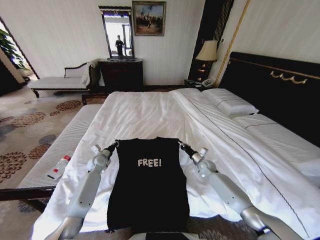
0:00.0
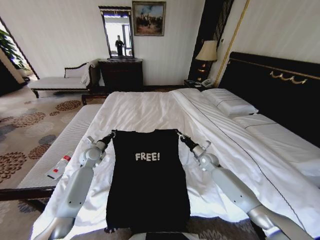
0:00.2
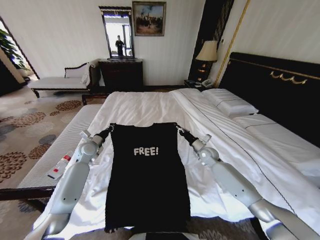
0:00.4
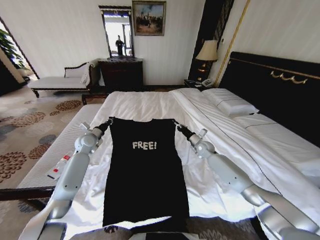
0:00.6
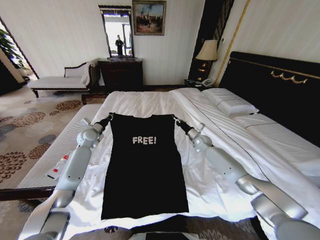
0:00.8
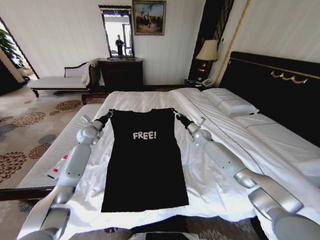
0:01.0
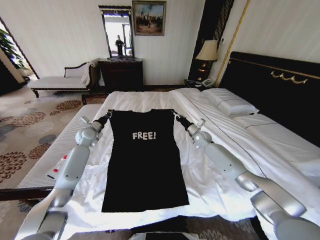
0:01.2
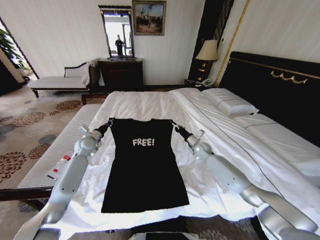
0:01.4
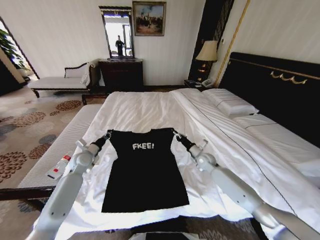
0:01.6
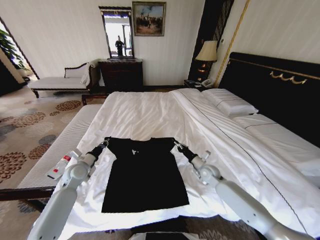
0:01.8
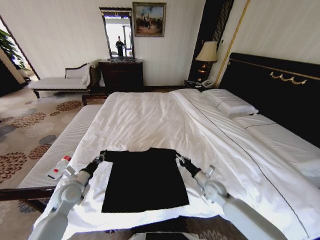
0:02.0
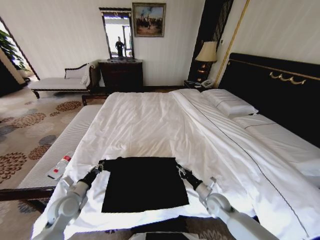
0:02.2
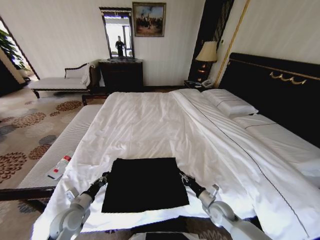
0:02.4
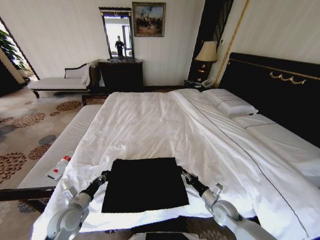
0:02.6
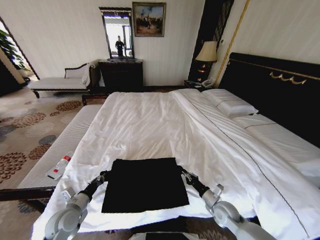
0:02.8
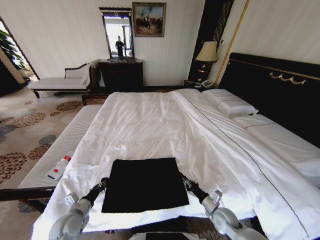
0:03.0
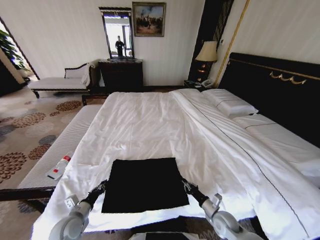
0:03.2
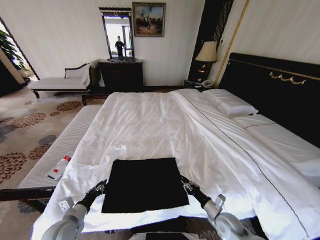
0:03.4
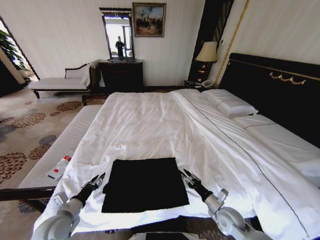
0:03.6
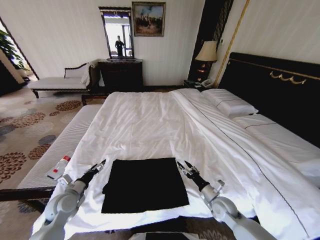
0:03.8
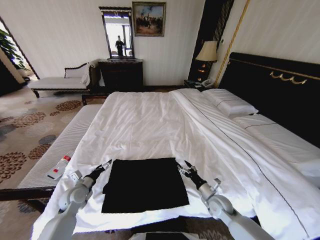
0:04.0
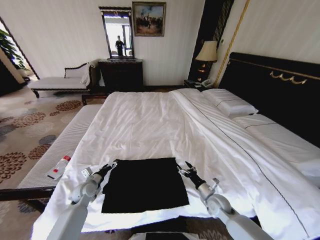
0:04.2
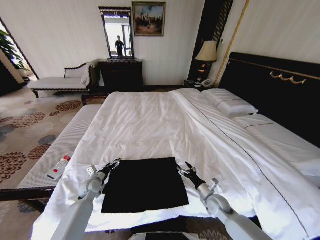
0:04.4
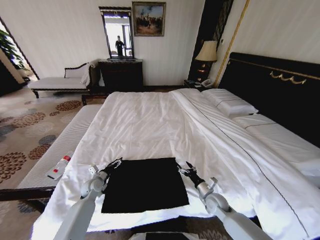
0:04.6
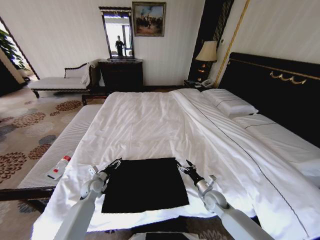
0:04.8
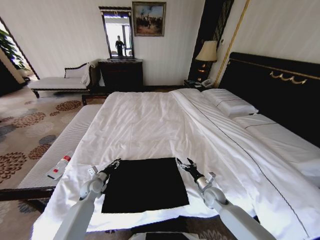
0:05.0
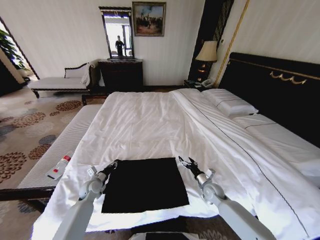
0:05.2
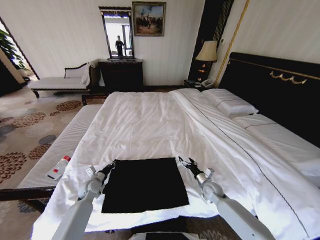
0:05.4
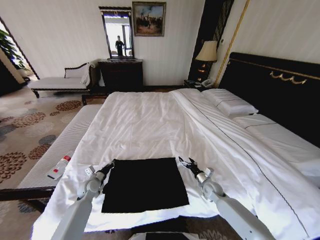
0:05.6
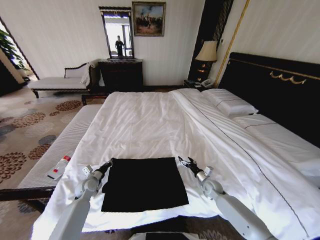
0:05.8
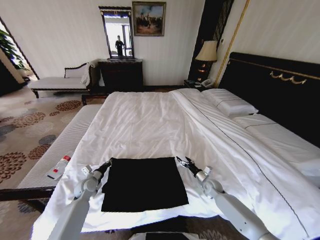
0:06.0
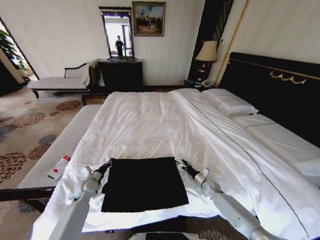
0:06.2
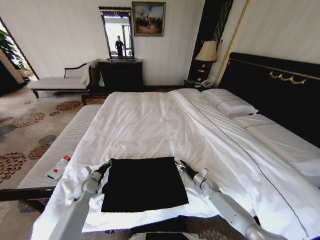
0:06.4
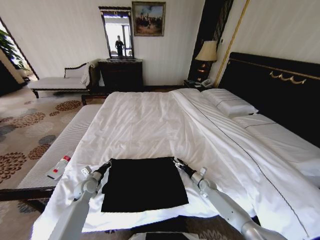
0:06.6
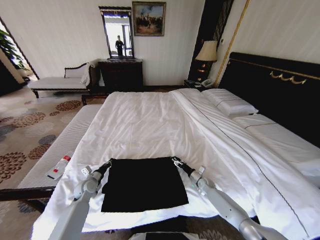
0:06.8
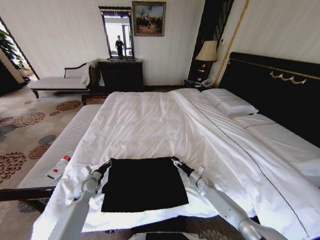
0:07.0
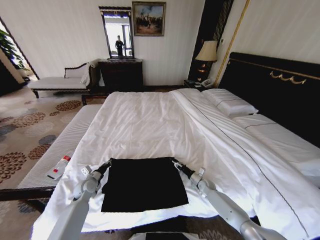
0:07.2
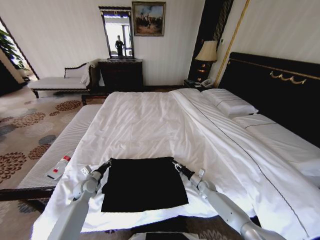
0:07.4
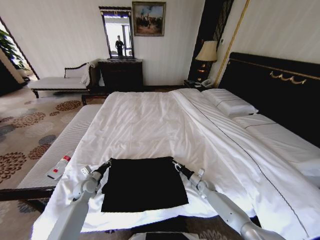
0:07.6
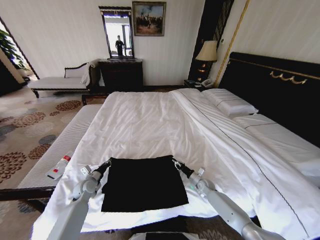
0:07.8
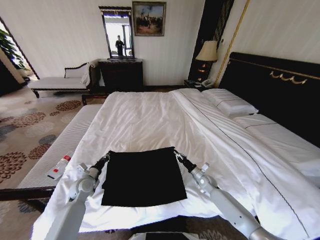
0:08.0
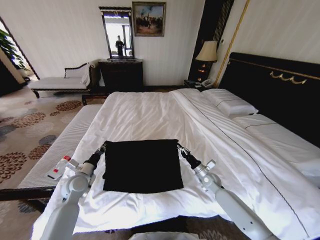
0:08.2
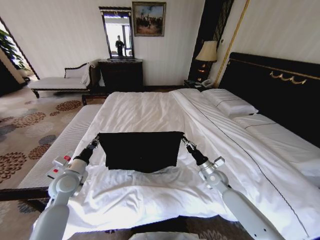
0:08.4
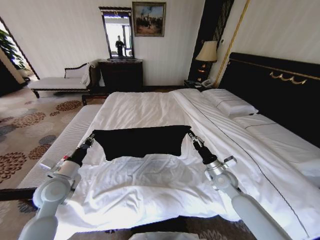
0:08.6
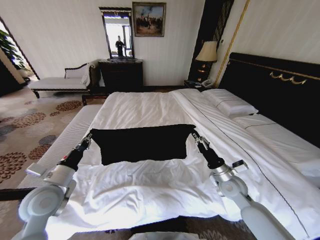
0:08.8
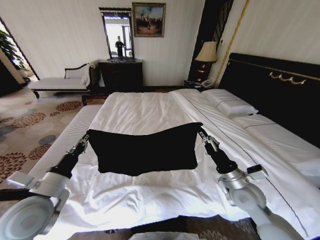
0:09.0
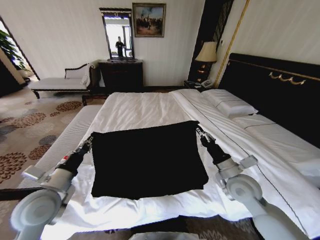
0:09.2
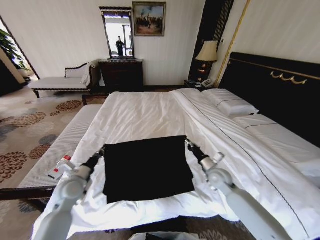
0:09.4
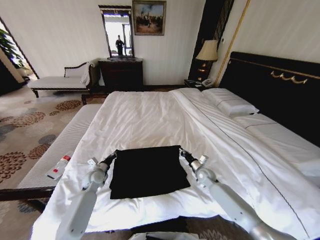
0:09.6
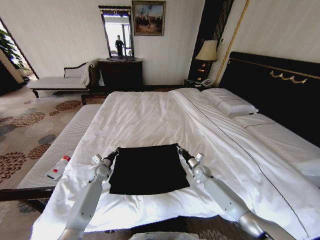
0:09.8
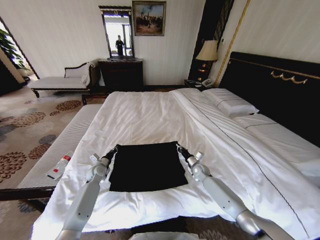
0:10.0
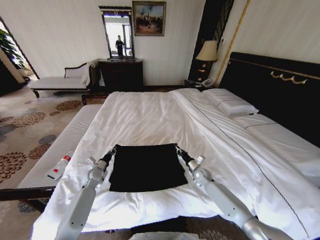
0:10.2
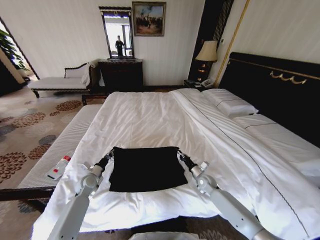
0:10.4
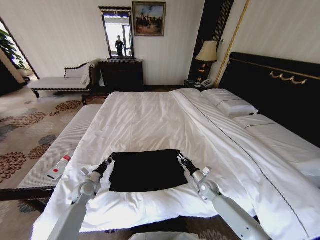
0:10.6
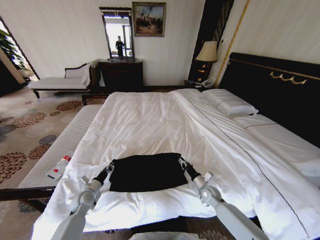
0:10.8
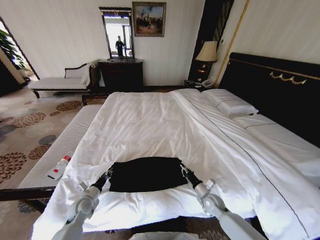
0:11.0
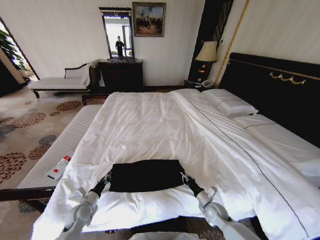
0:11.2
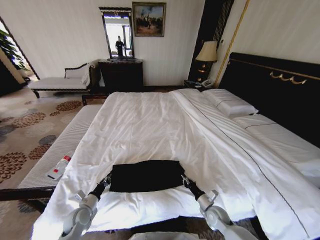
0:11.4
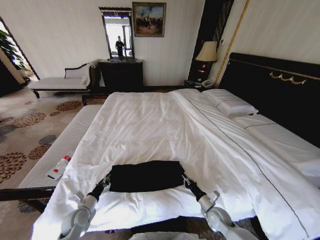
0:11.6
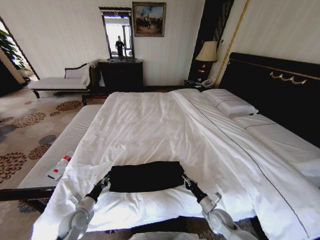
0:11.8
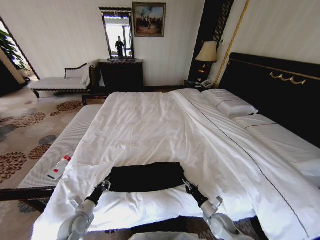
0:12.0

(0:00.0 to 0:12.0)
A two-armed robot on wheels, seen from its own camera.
Task of the whole recording: Fold the clothes on the bed.
0:00.0 - 0:01.6: The grippers both shift upward by about 10 cm.
0:01.6 - 0:03.0: The right gripper travels backward and downward by approximately 30 cm; the left gripper is displaced backward by approximately 25 cm.
0:03.0 - 0:04.4: The left gripper heads forward, covering some 15 cm, and opens, while the right gripper changes place by about 5 cm, and opens its fingers.
0:04.4 - 0:06.0: The right gripper goes about 10 cm forward; the left gripper closes its fingers.
0:06.0 - 0:07.6: The right gripper goes about 5 cm downward, and closes its fingers.
0:07.6 - 0:09.0: The grippers both shift upward and backward by about 30 cm.
0:09.0 - 0:10.4: Both grippers travel together downward and forward, some 30 cm.
0:10.4 - 0:12.0: The grippers both shift backward by approximately 20 cm.

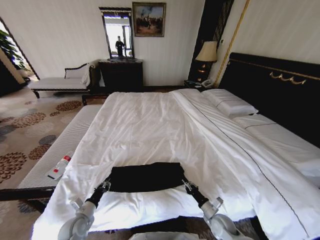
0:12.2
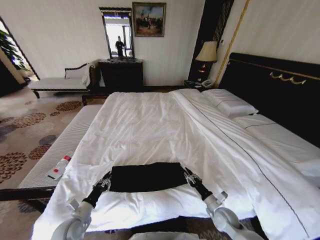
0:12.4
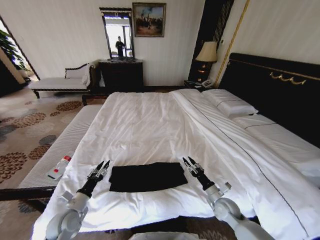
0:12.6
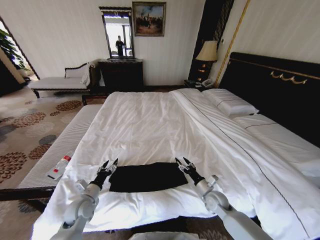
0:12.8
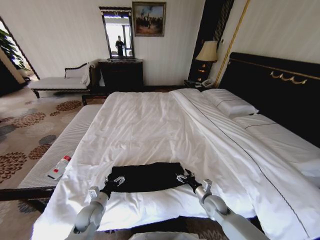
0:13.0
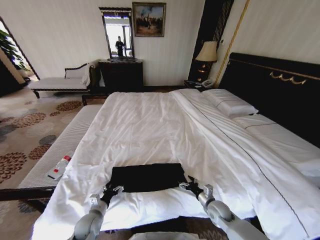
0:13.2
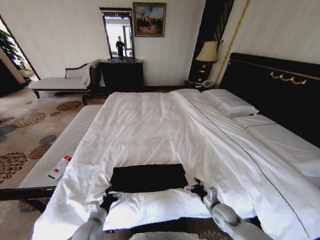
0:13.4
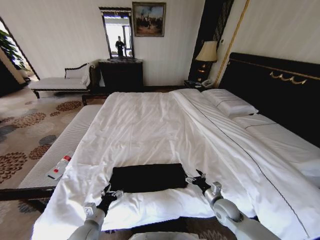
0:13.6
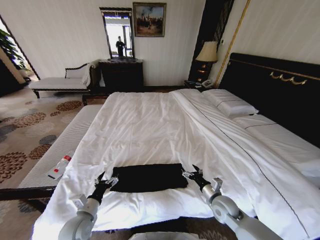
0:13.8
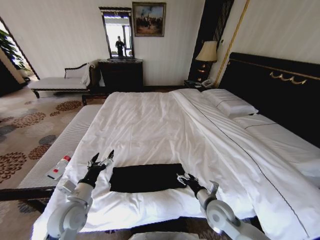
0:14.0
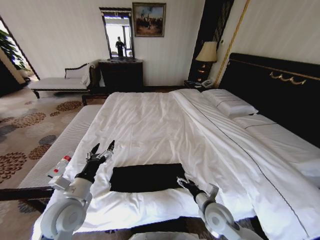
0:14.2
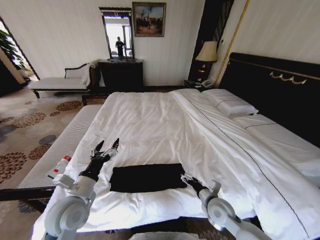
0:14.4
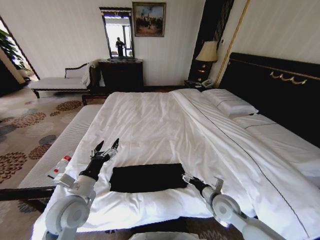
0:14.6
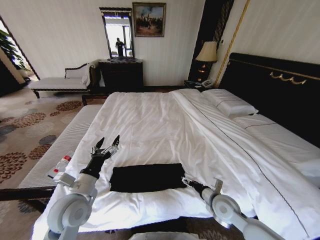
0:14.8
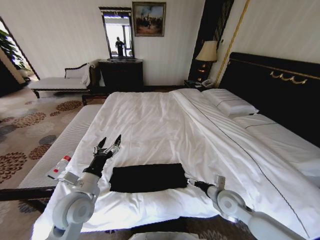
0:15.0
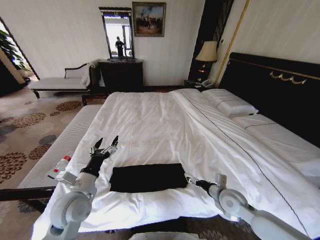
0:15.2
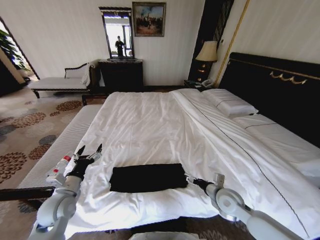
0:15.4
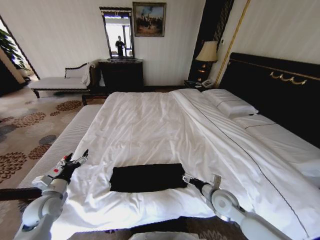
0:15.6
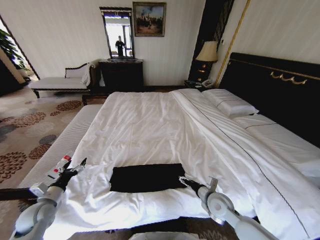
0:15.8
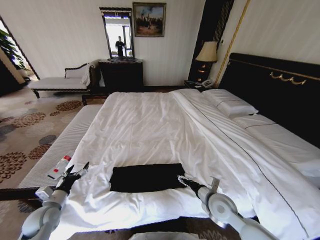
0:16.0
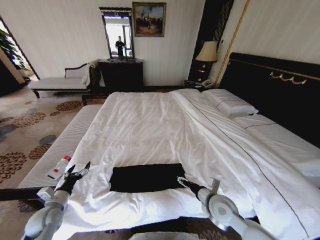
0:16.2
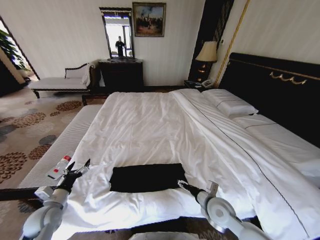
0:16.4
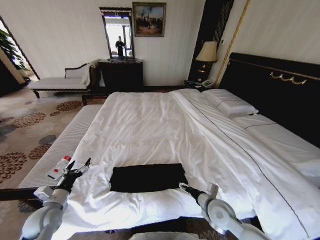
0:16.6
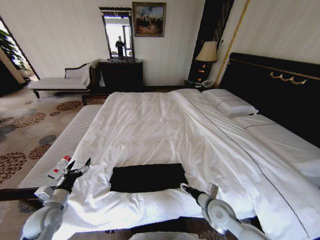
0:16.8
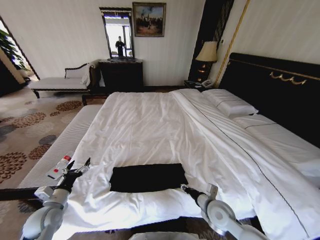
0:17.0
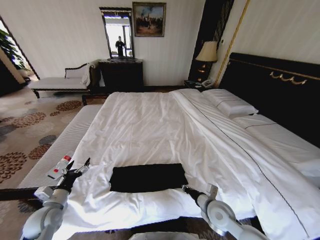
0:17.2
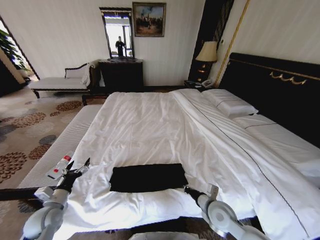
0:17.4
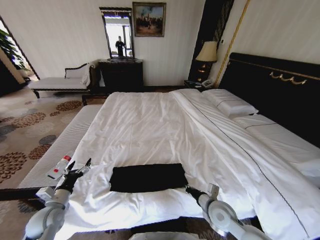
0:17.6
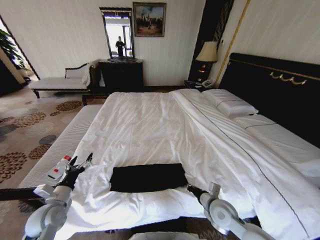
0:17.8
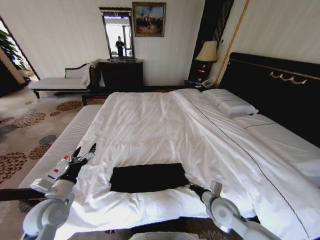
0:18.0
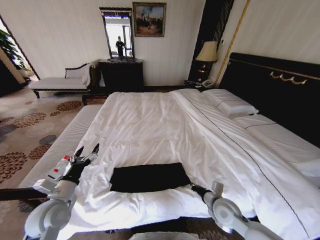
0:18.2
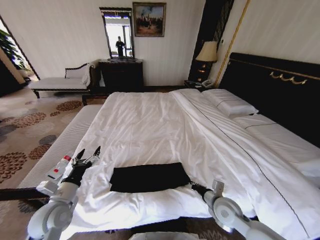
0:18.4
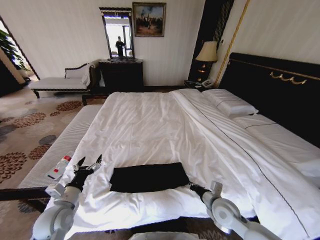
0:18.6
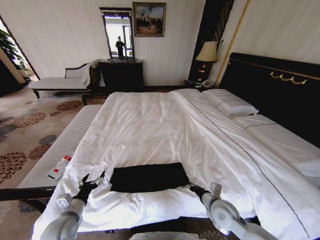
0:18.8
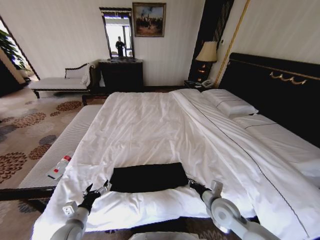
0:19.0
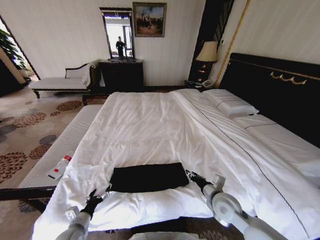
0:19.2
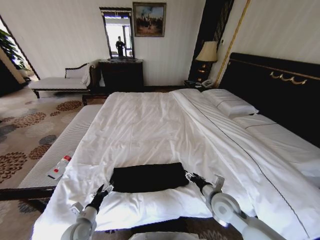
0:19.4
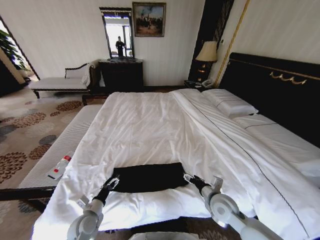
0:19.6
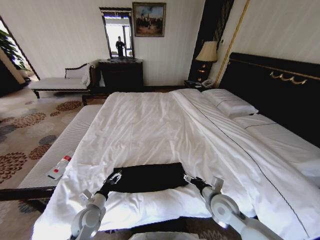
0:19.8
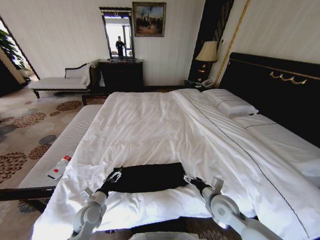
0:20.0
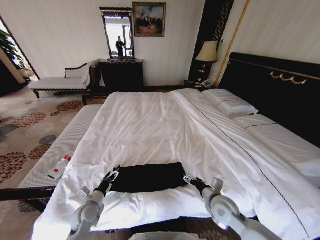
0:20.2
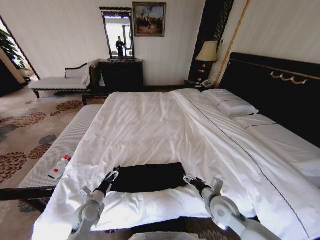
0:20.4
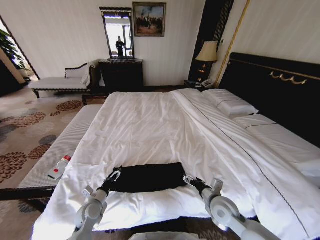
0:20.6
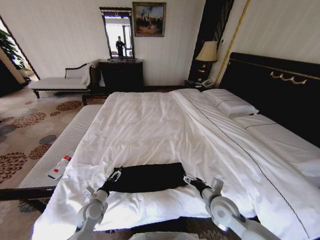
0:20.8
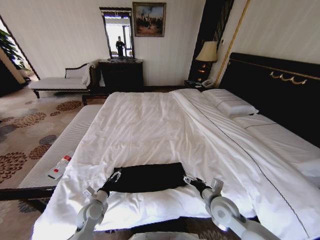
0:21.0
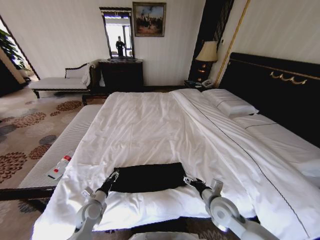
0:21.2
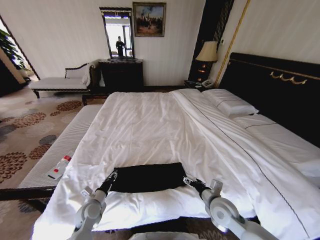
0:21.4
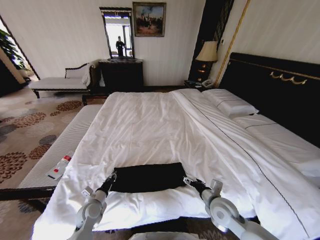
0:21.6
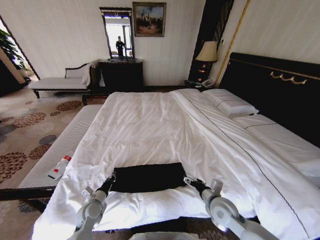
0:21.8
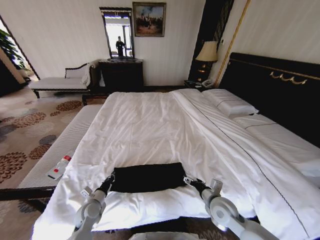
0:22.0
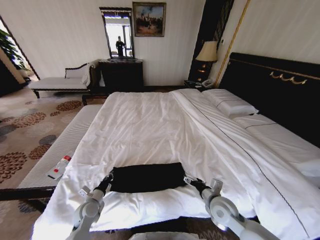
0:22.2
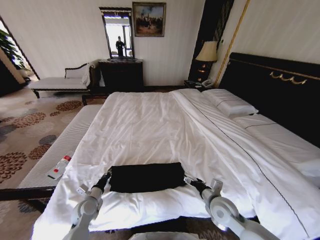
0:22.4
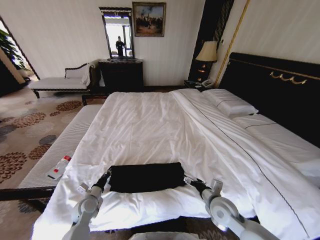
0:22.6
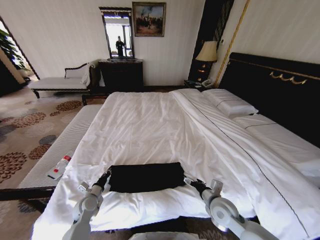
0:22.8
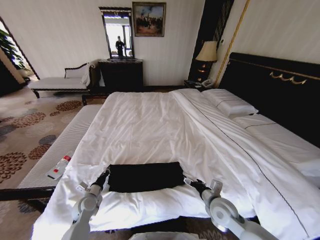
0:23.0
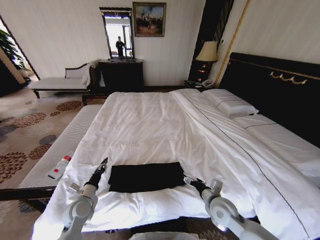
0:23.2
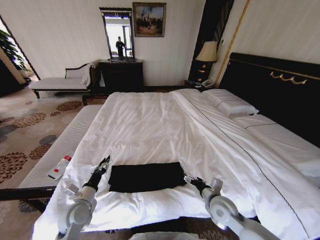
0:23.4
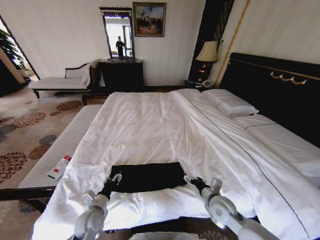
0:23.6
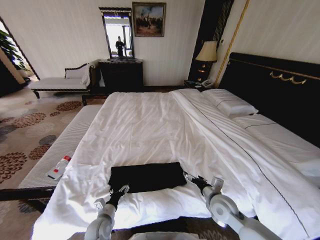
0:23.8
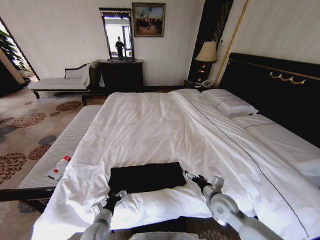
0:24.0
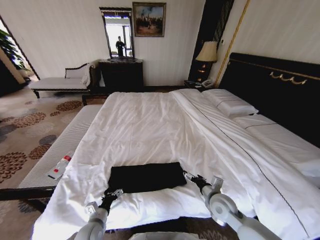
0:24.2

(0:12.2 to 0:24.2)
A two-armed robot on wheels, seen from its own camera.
Task of the whole recording: Fold the clothes on the bed.
0:12.2 - 0:13.8: The left gripper swings up and down, approximately 10 cm each way, with 2 reversals, and opens. Meanwhile the right gripper swings up and down, about 10 cm each way, with 2 reversals, and opens its fingers.
0:13.8 - 0:15.2: The right gripper travels upward by about 5 cm. Meanwhile the left gripper moves upward, roughly 10 cm.
0:15.2 - 0:16.6: The right gripper is displaced to the left by roughly 5 cm. Meanwhile the left gripper is displaced to the left and downward by some 15 cm.
0:16.6 - 0:18.2: The left gripper shifts about 10 cm upward and to the right. The right gripper closes up.
0:18.2 - 0:19.8: The right gripper opens, while the left gripper is displaced downward and to the right by some 15 cm.
0:19.8 - 0:21.2: The left gripper closes.
0:21.2 - 0:22.6: The left gripper closes up.
0:22.6 - 0:24.2: The left gripper moves backward and to the right, some 10 cm, reaches roughly 10 cm upward, then returns, and opens its fingers.
